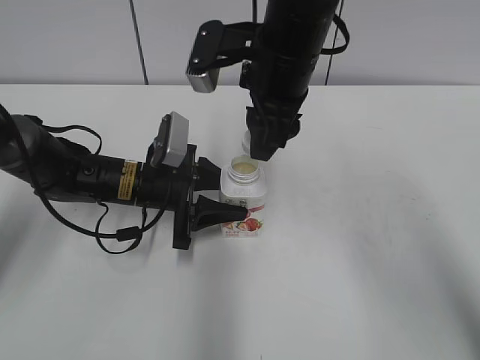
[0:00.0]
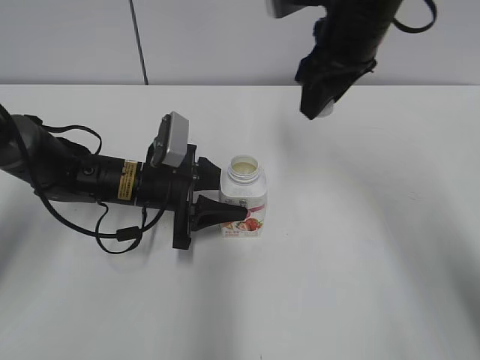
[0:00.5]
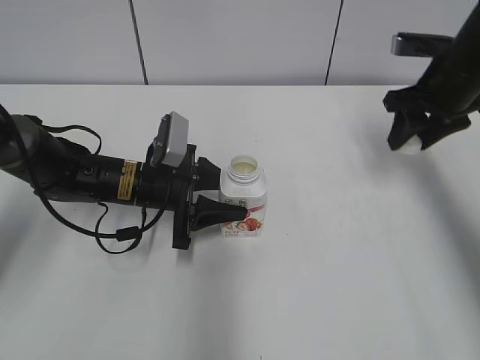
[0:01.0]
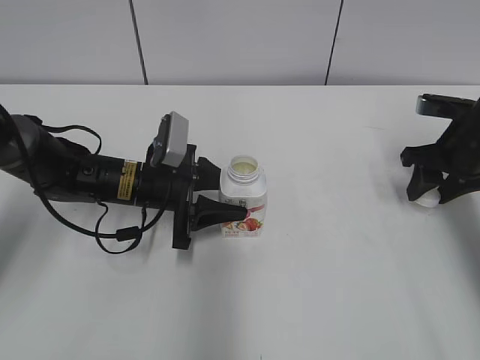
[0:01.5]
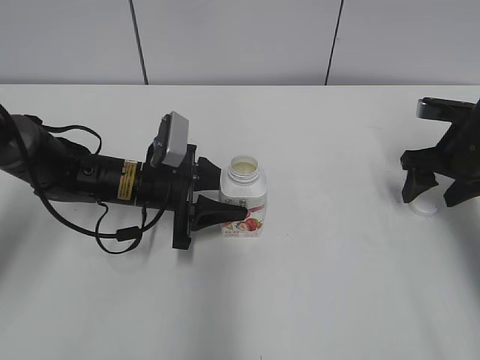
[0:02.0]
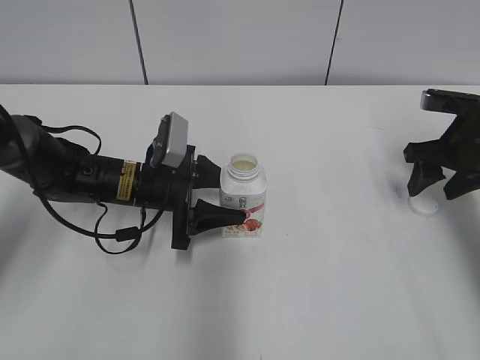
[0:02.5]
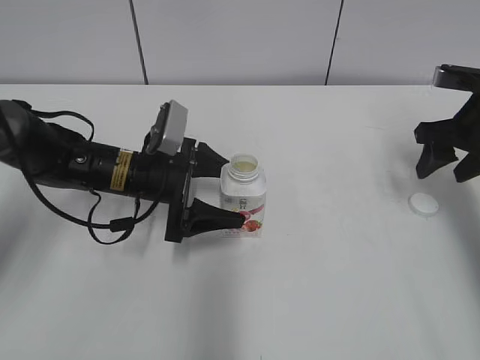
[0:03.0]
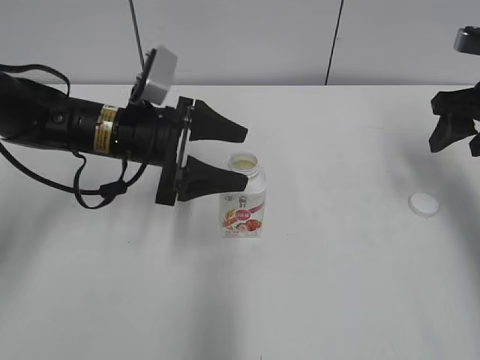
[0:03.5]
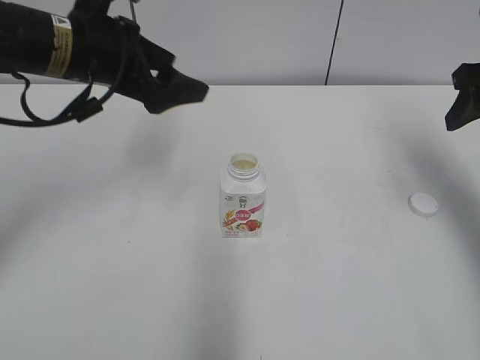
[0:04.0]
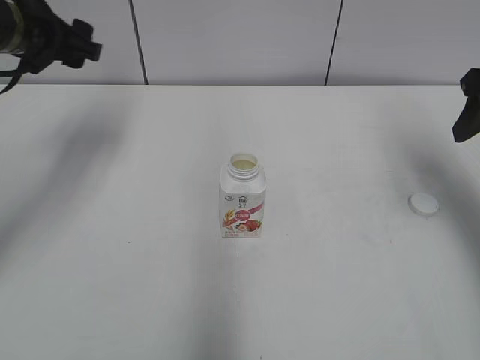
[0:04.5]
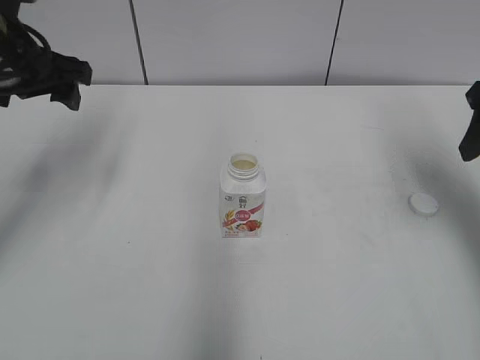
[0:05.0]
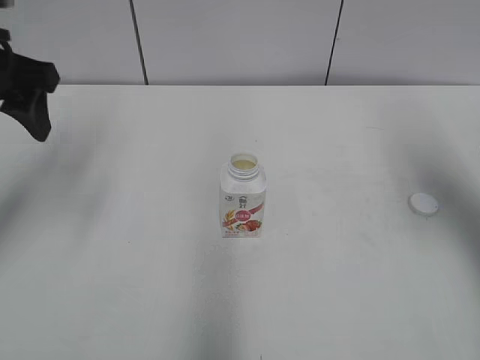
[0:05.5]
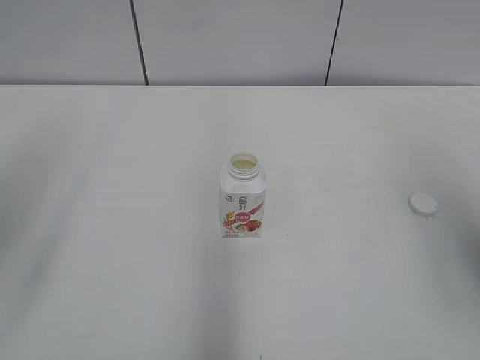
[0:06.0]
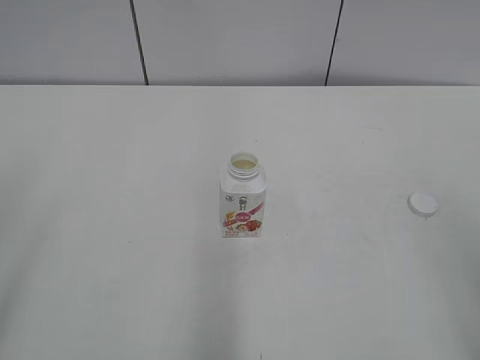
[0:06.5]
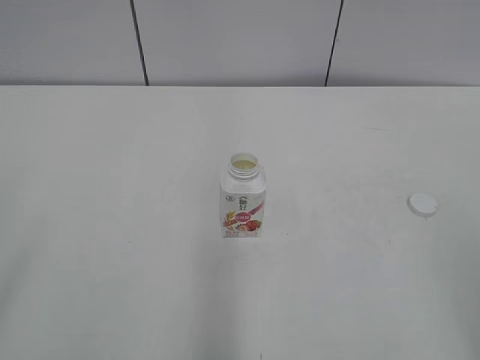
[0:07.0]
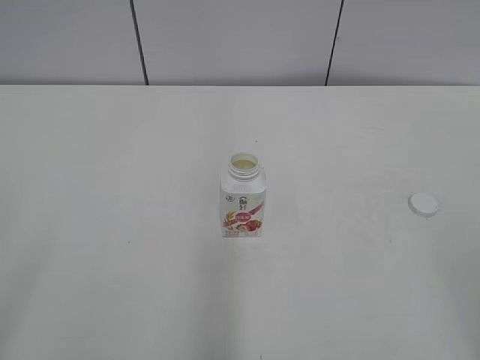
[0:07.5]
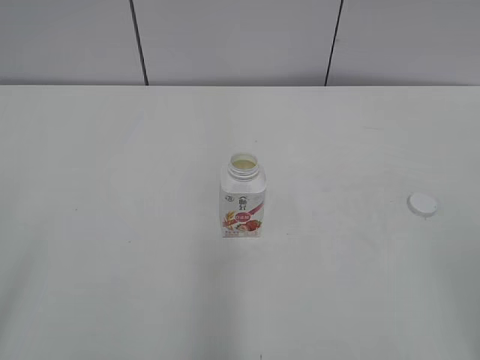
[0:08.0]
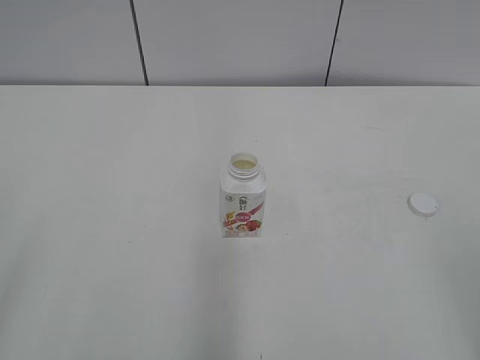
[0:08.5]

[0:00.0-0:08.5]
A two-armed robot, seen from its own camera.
Step, 0:00.0 to 0:02.0: Place the bottle cap on the right.
0:00.0 to 0:02.0: The right gripper heads to the right and downward, covering some 30 cm, and opens.
0:02.0 to 0:04.0: Both grippers travel together upward, about 15 cm. The left gripper opens its fingers.
0:04.0 to 0:06.5: The right gripper moves backward, approximately 30 cm; the left gripper shifts roughly 30 cm backward and to the left.

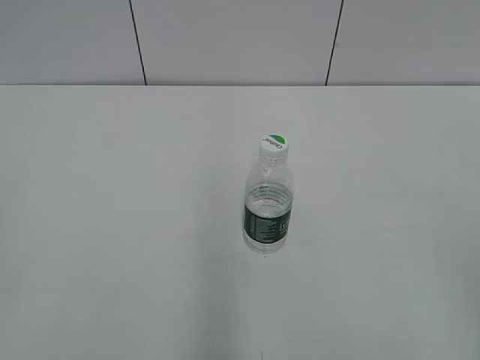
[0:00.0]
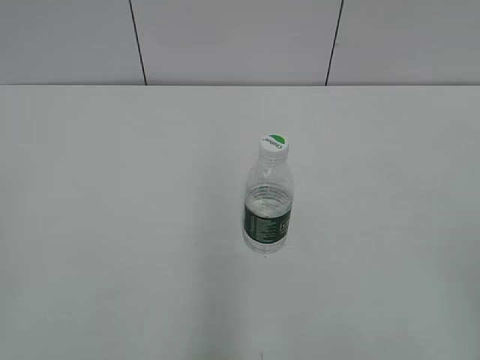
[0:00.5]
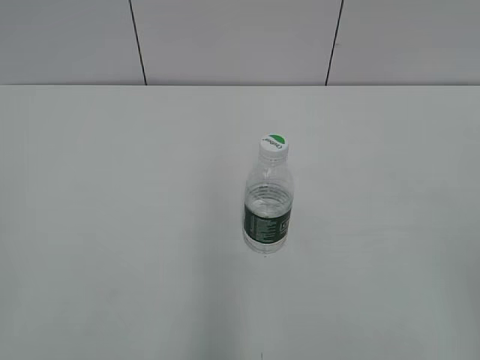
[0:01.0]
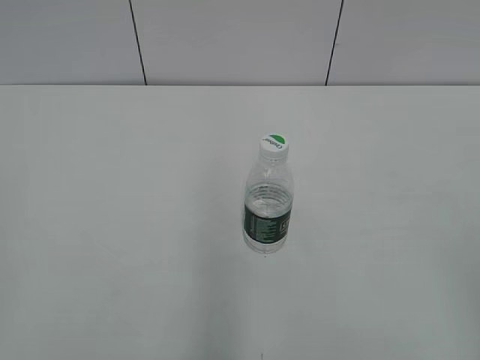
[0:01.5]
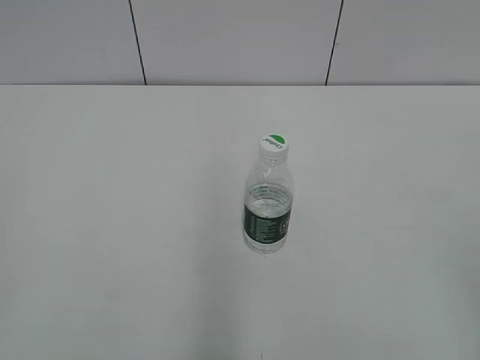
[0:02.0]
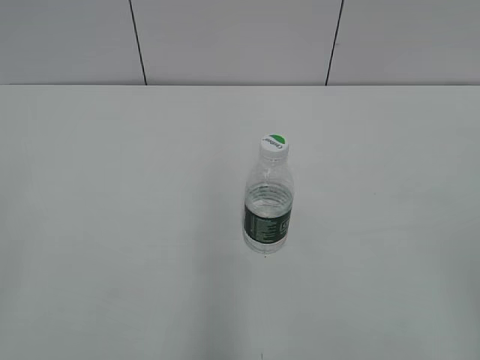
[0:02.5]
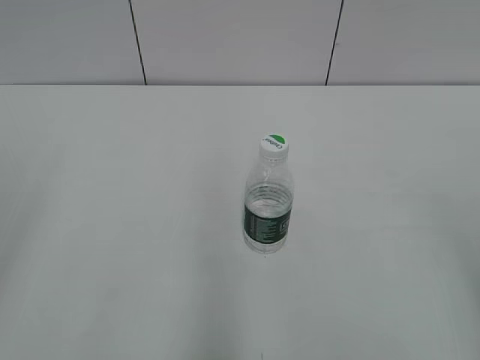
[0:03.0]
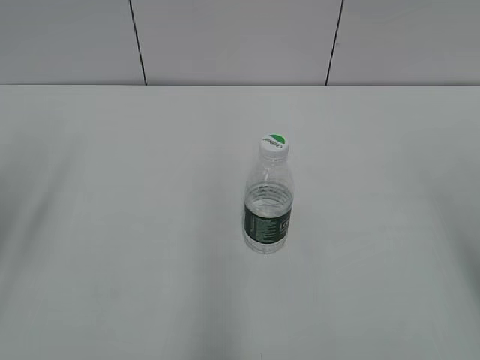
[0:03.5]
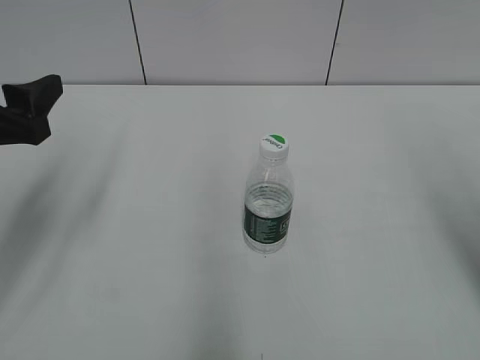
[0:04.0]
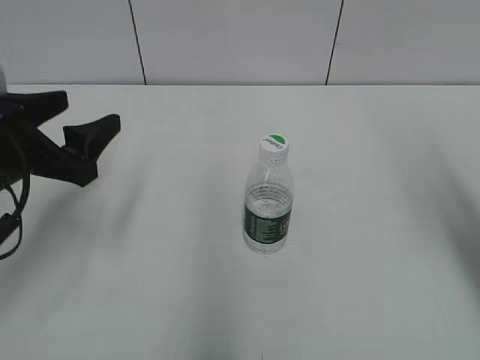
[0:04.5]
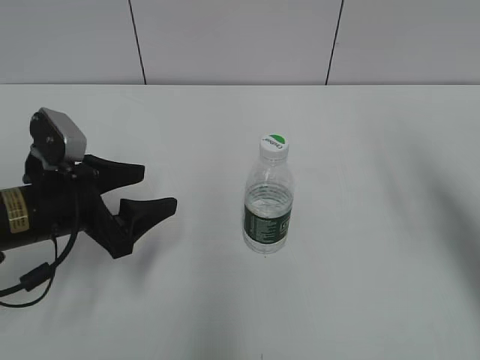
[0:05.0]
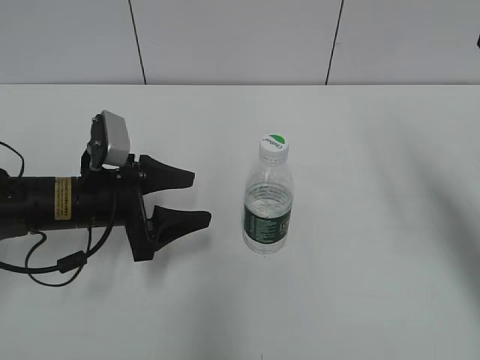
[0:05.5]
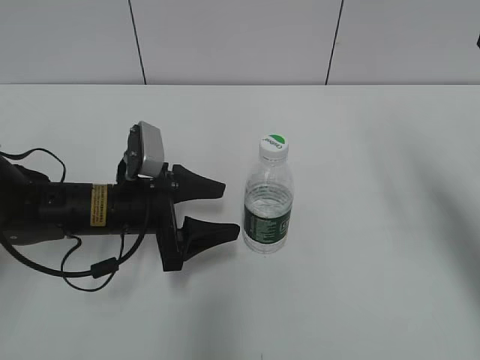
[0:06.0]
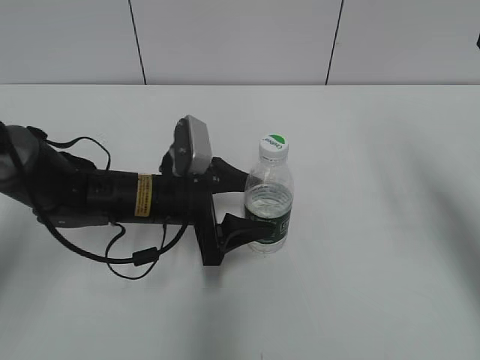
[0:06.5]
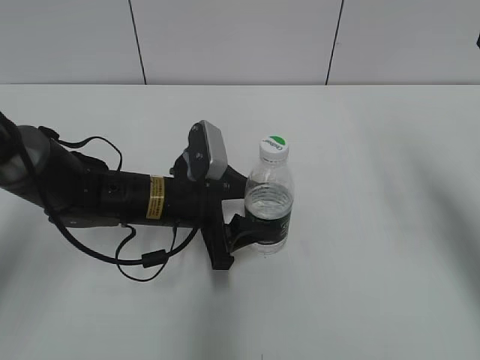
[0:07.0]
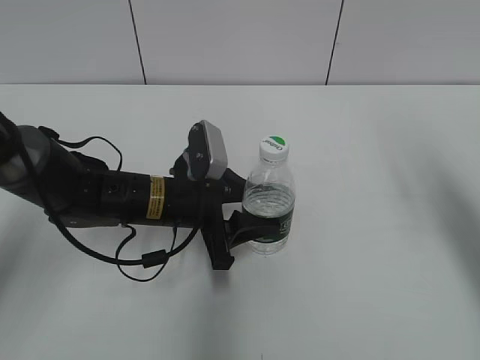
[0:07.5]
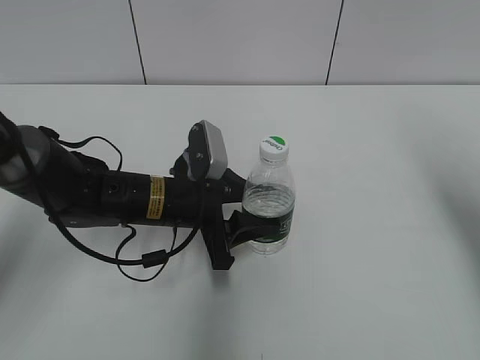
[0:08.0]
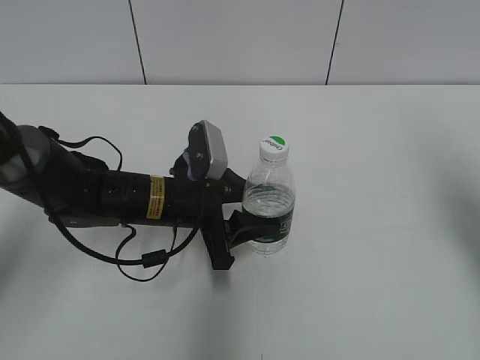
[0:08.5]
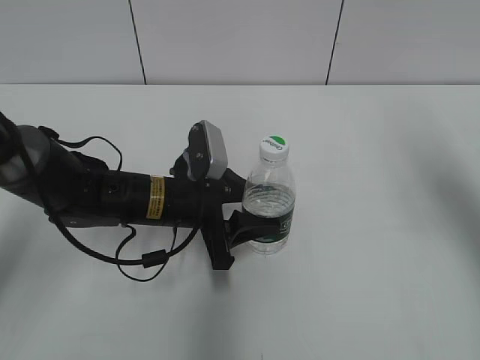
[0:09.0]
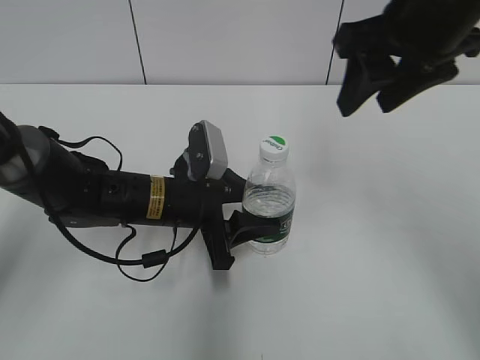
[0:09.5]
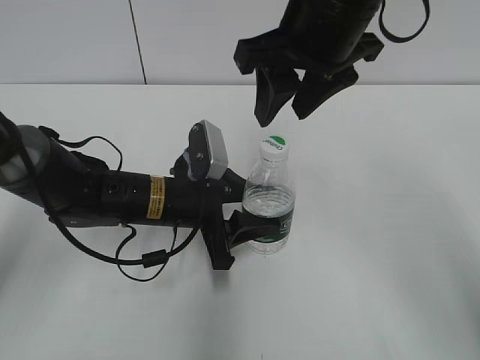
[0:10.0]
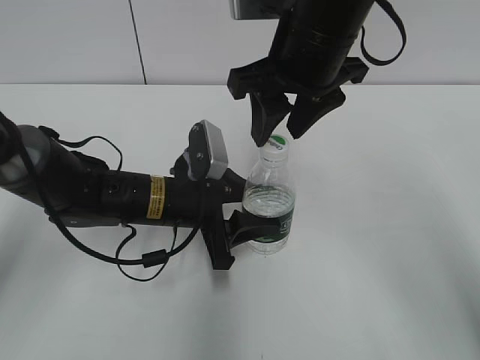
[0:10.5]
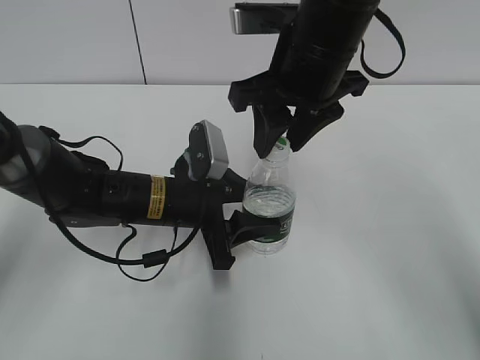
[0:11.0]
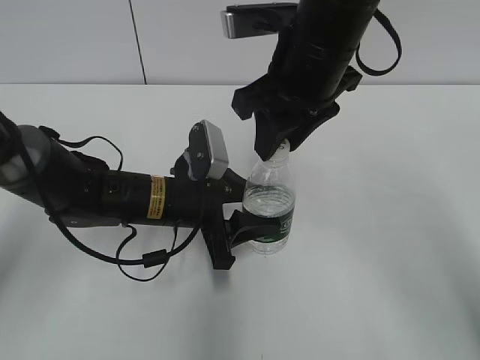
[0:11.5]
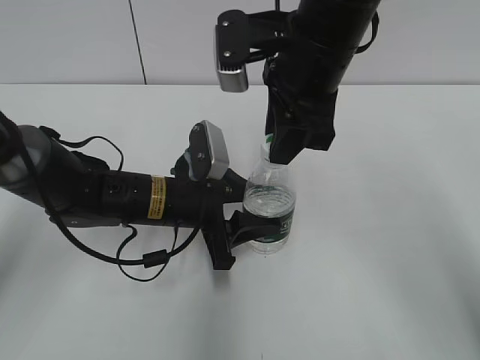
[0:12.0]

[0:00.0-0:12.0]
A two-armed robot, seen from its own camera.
Step, 0:00.0 to 0:08.0: Grasp the bottle and move it to the center of the table with the left gripper.
0:02.0 to 0:04.0: The right gripper goes some 15 cm forward, while the left gripper heads forward, covering about 25 cm, and opens up.
0:04.0 to 0:06.0: The right gripper travels forward by approximately 10 cm, while the left gripper shifts roughly 20 cm downward, to the right and forward.
0:06.0 to 0:08.0: The left gripper is displaced to the right by some 5 cm, and closes up.
0:08.0 to 0:10.0: The right gripper heads to the left, covering roughly 25 cm, and closes.
0:10.0 to 0:12.0: The right gripper closes its fingers.

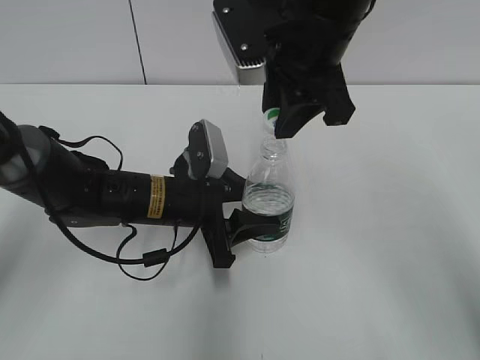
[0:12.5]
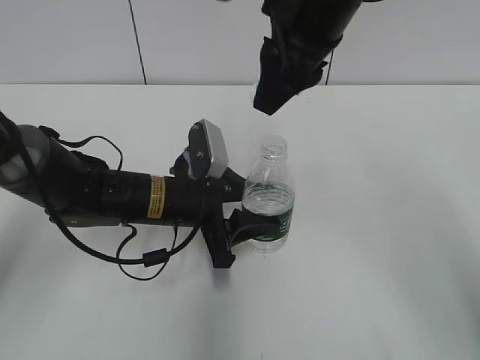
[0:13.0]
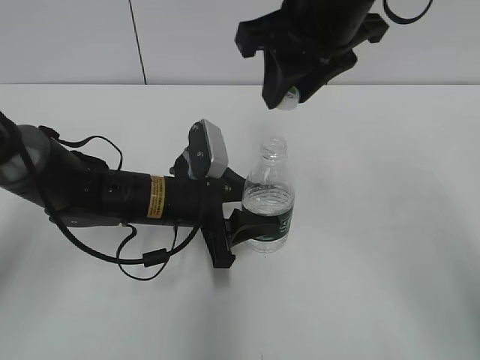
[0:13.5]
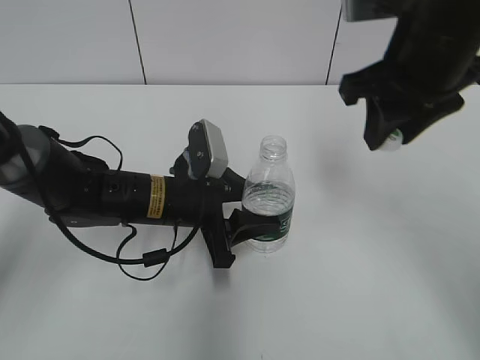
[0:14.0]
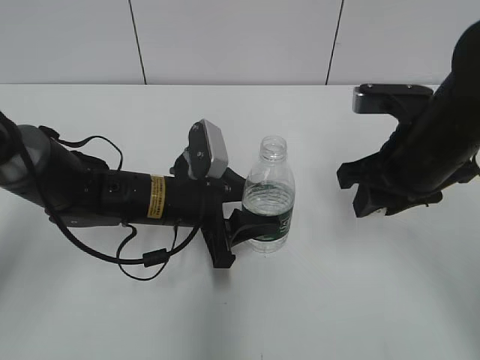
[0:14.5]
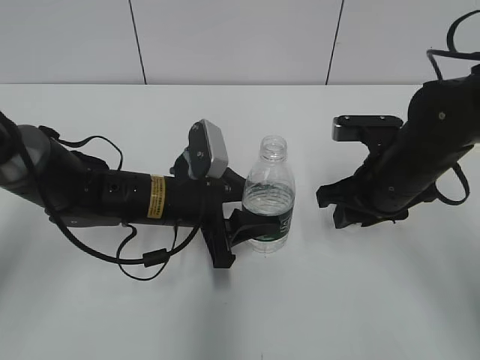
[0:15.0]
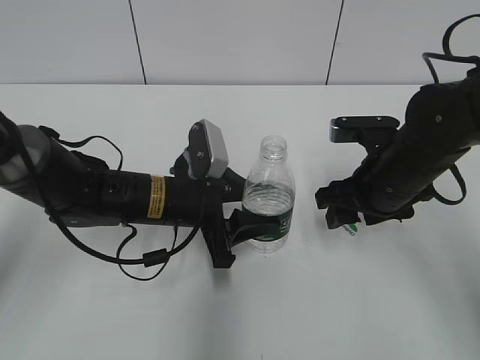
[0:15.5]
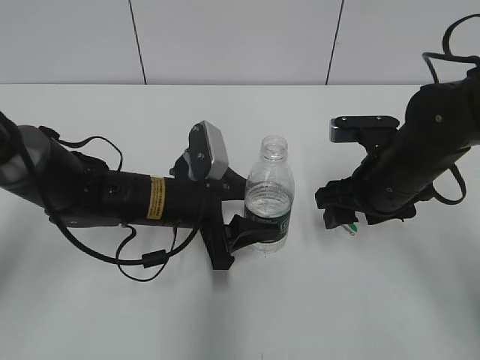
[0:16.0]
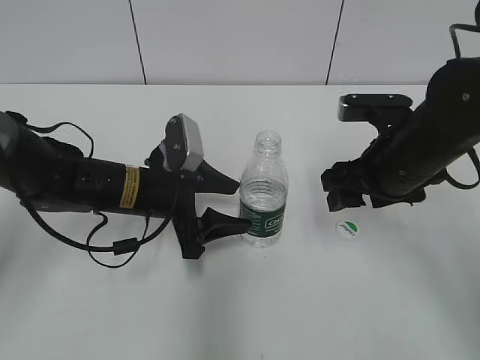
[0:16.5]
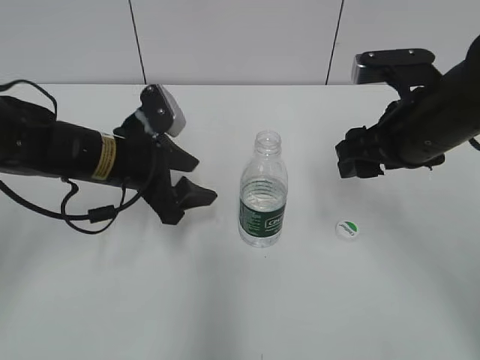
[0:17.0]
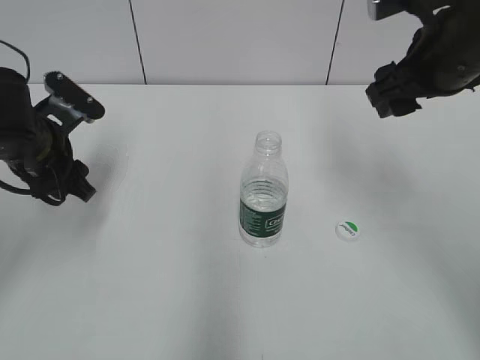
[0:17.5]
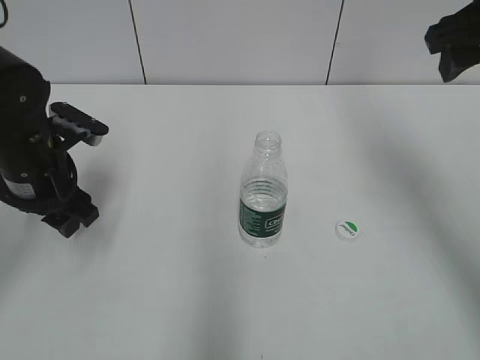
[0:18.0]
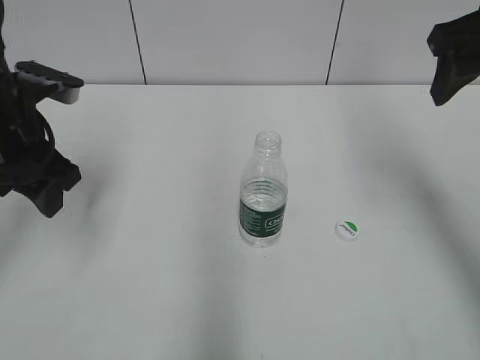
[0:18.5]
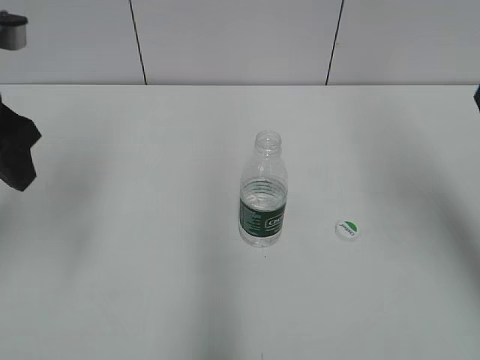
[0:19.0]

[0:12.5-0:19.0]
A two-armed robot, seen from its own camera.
Step, 0:13.0 to 0:15.5: Place the bottle cap on the table with the right gripper.
Step, 0:16.0 to 0:16.5: Place the bottle on the table with the left gripper.
0:12.5 to 0:14.5: The right gripper shifts some 15 cm to the right and downward.
0:14.5 to 0:17.0: The right gripper opens. The left gripper moves to the left, some 5 cm, and opens its fingers.
0:17.0 to 0:19.0: The left gripper goes roughly 20 cm upward, to the left and backward, while the right gripper travels upward and to the right by some 15 cm.
